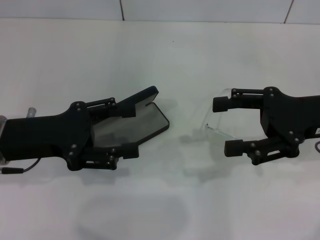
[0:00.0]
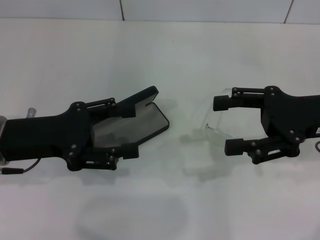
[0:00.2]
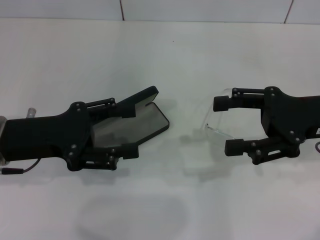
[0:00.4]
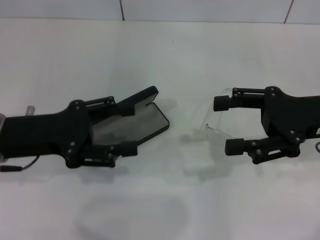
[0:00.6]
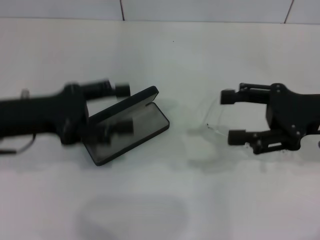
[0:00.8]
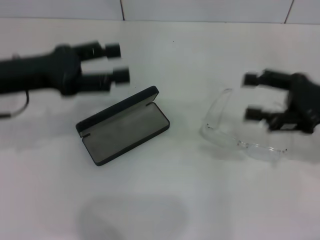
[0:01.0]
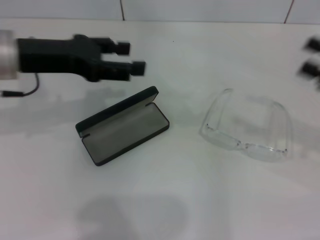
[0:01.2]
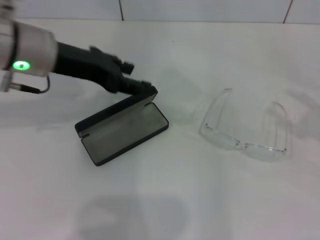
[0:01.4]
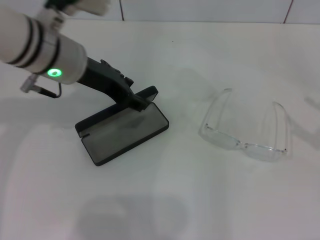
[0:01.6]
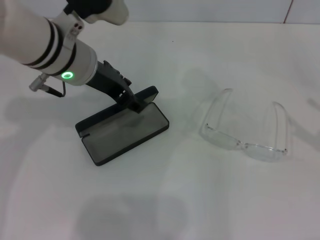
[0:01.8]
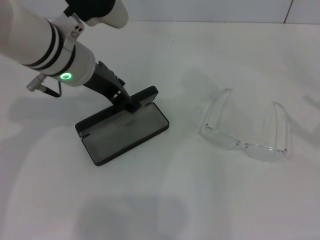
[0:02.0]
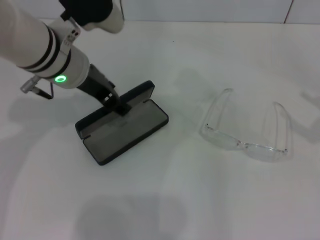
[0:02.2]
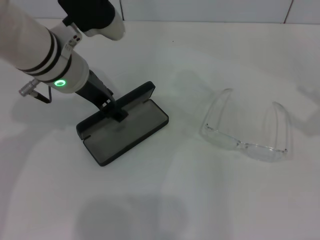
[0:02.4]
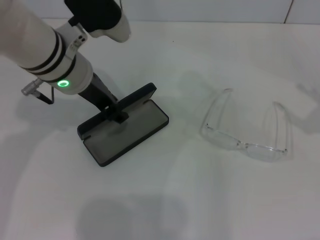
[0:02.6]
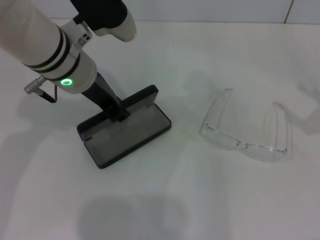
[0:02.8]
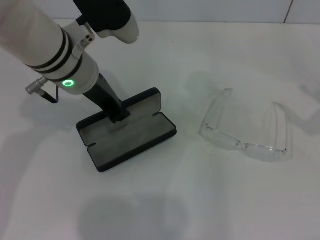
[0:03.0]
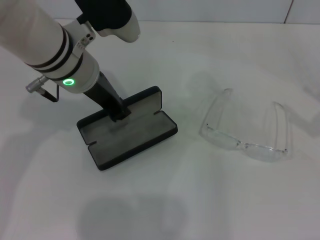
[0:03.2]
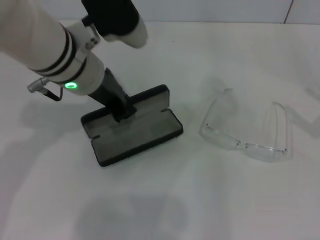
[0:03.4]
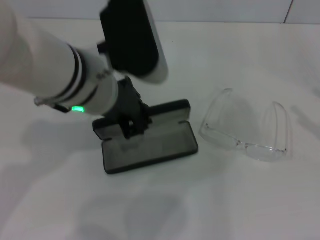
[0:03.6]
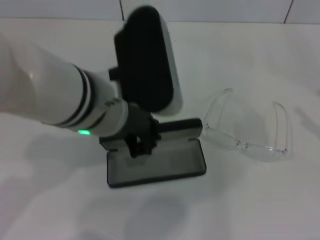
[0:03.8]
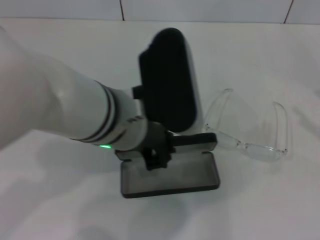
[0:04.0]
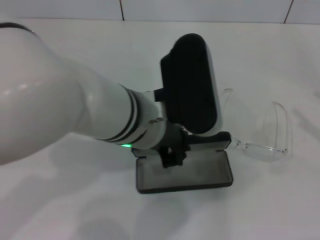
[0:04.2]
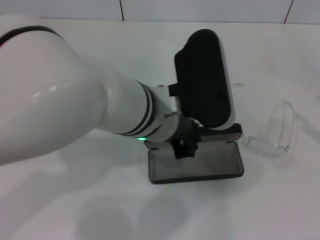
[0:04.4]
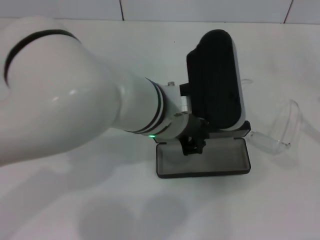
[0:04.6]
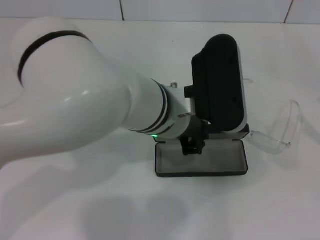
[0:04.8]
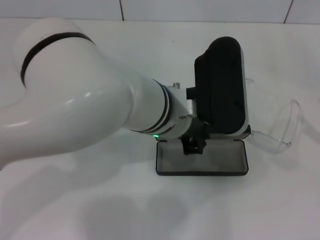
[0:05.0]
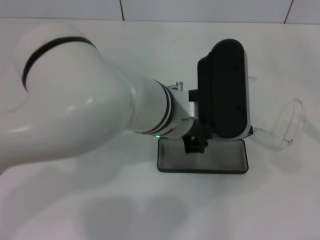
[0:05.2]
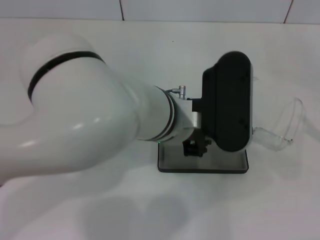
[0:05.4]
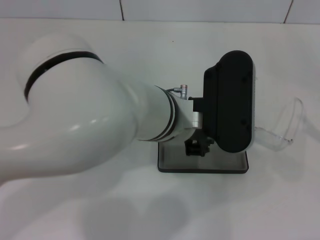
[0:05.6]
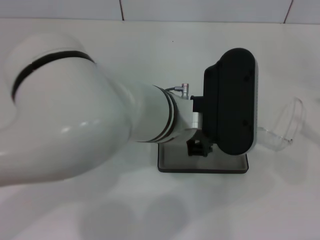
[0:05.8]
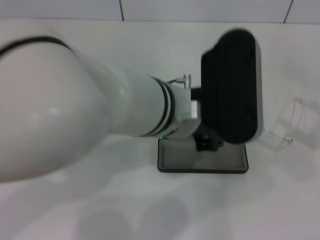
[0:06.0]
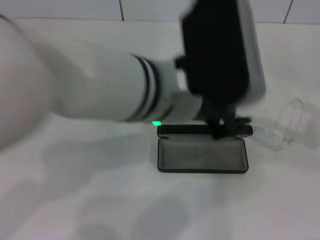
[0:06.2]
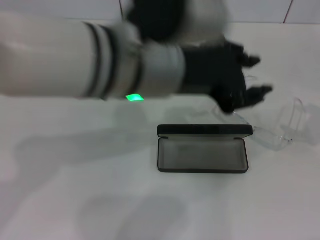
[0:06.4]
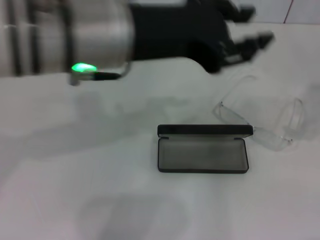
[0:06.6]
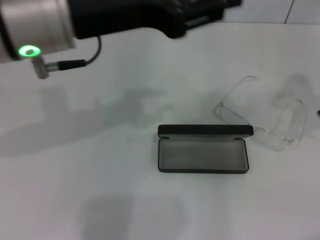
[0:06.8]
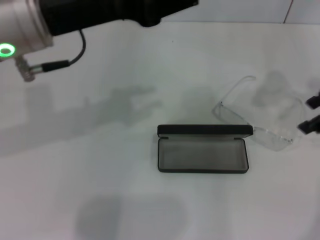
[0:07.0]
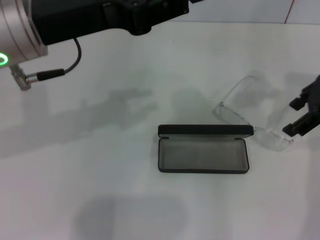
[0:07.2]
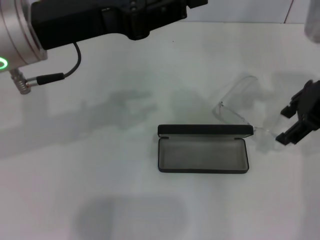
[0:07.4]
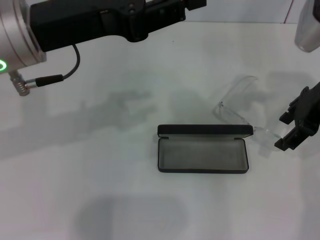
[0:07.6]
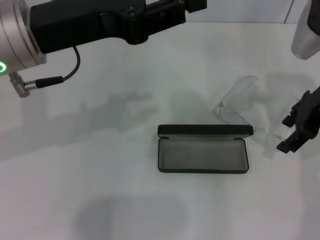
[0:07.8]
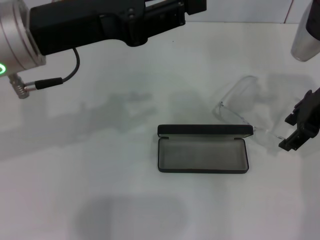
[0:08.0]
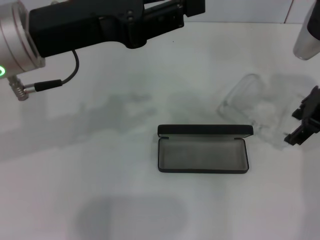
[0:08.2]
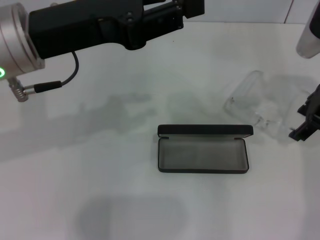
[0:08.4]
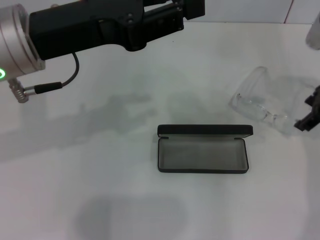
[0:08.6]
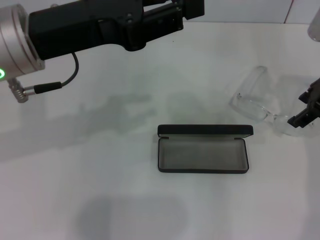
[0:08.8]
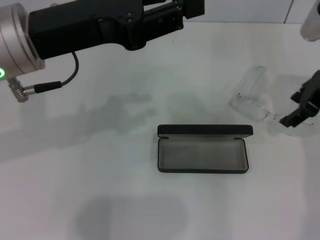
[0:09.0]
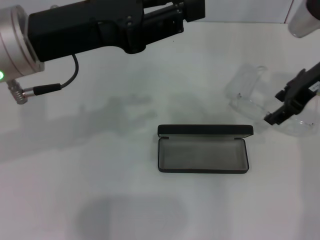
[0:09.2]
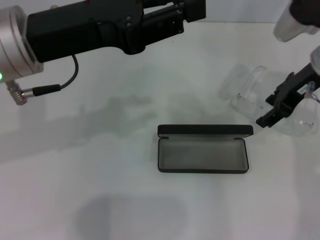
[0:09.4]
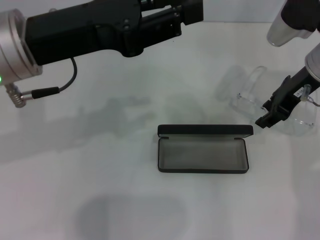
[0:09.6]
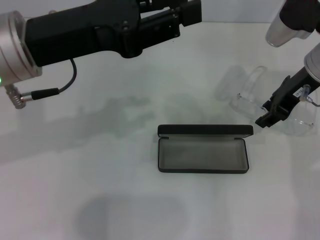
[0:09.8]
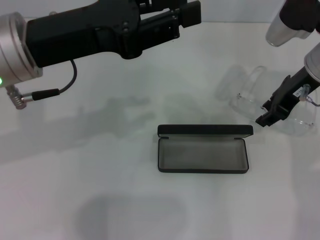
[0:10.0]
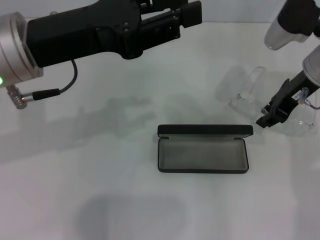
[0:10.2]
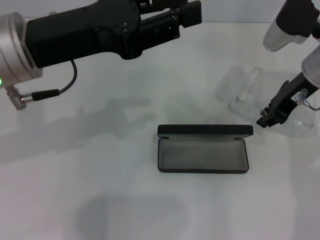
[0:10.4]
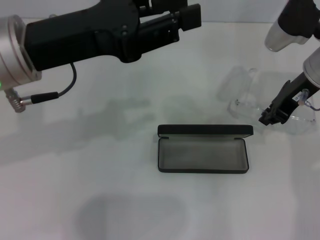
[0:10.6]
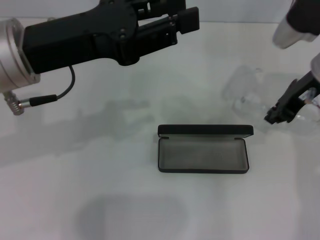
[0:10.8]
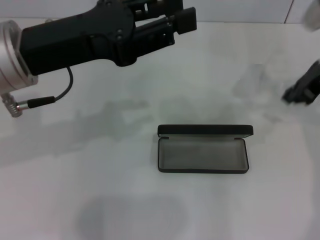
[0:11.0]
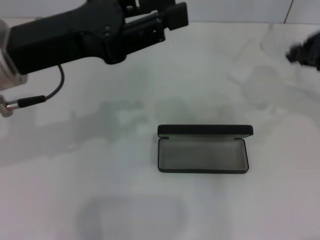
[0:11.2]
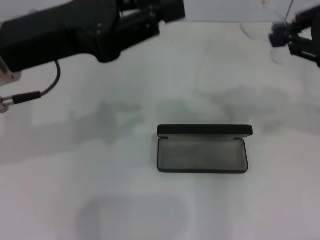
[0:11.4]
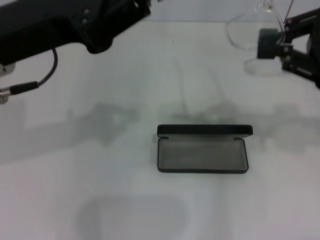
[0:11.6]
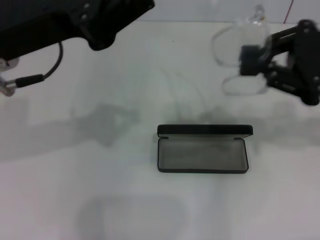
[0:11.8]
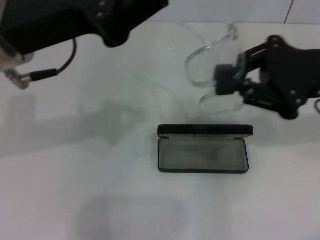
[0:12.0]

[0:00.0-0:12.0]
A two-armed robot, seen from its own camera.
Step, 0:00.0 to 0:02.8: Grab the glasses case with your left hand.
Step, 0:03.0 to 0:05.4: Place the glasses case in the center of the table with your left hand.
Step, 0:05.6 to 0:10.6: Grab the eyeglass frame with your right hand.
0:00.0 to 0:01.6: The right gripper shifts approximately 15 cm to the right and backward. Meanwhile the left gripper heads to the right, forward and upward, covering some 15 cm.
0:01.6 to 0:03.0: The left gripper closes its fingers.
0:03.0 to 0:04.4: The left gripper heads to the right and backward, covering approximately 10 cm.
0:04.4 to 0:06.0: There are only small adjustments of the grippers.
0:06.0 to 0:07.6: The right gripper travels to the left, forward and upward by approximately 25 cm. Meanwhile the left gripper is displaced to the left by about 15 cm.
0:07.6 to 0:09.0: The grippers stay close to where they were, moving slightly.
0:09.0 to 0:10.4: The right gripper closes its fingers.
0:10.4 to 0:12.0: The right gripper travels backward by approximately 10 cm. Meanwhile the left gripper closes up.

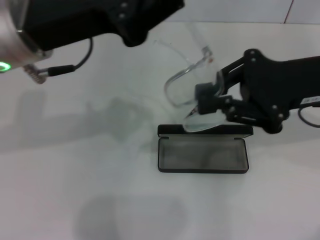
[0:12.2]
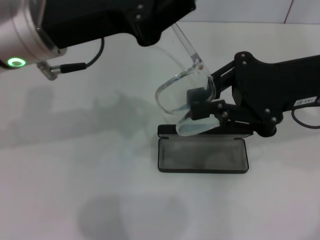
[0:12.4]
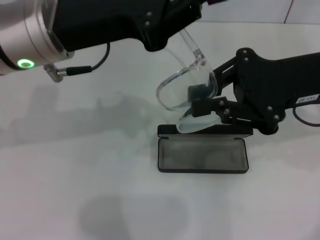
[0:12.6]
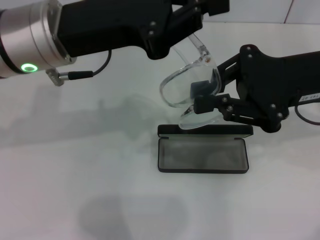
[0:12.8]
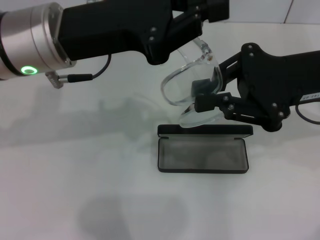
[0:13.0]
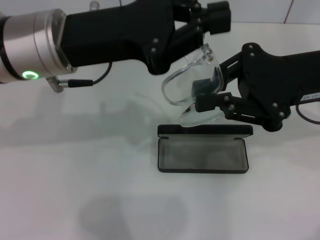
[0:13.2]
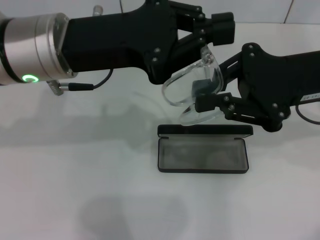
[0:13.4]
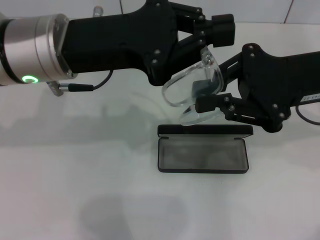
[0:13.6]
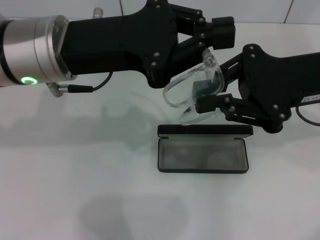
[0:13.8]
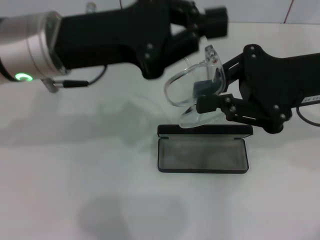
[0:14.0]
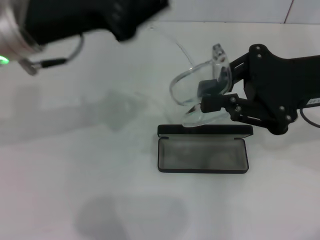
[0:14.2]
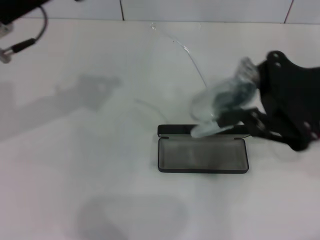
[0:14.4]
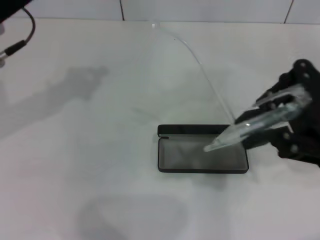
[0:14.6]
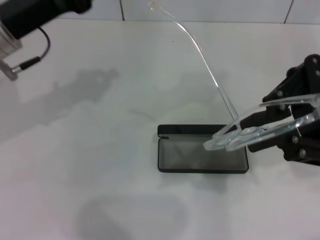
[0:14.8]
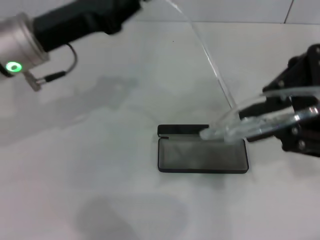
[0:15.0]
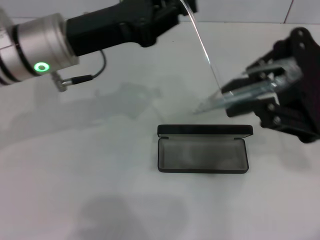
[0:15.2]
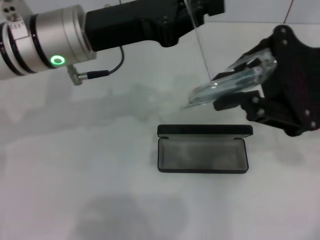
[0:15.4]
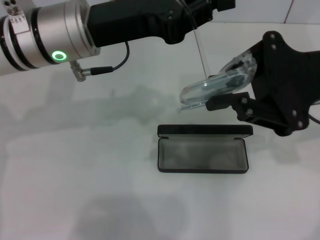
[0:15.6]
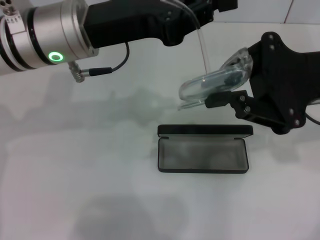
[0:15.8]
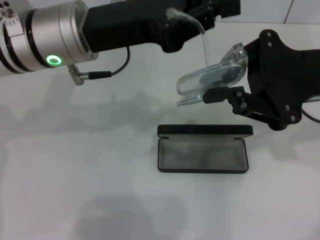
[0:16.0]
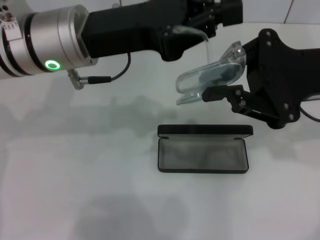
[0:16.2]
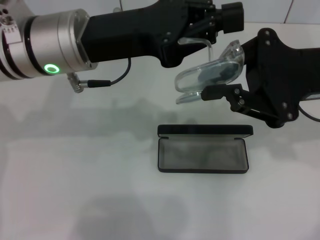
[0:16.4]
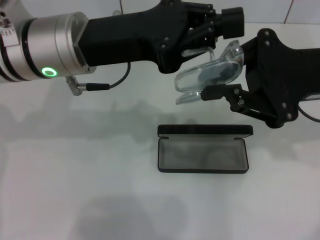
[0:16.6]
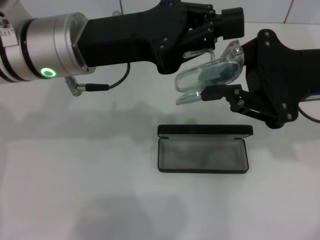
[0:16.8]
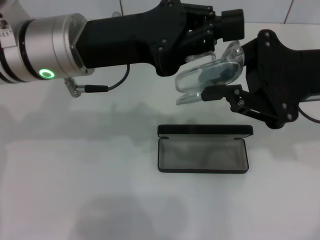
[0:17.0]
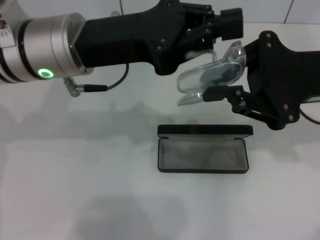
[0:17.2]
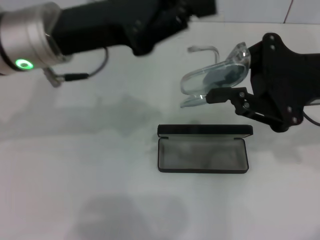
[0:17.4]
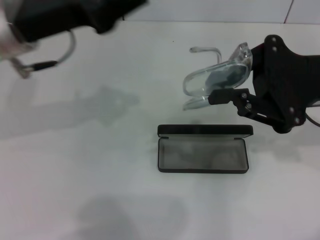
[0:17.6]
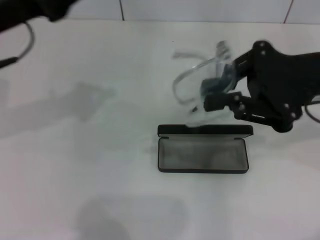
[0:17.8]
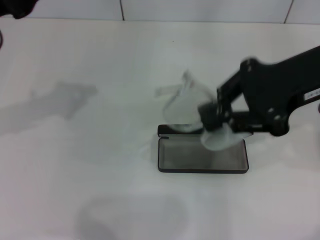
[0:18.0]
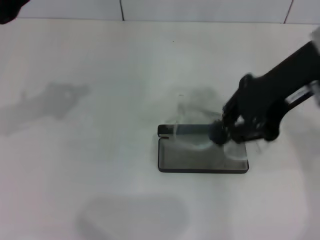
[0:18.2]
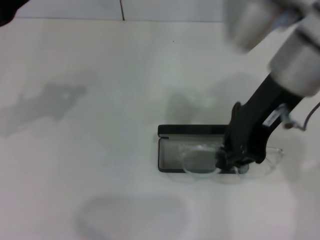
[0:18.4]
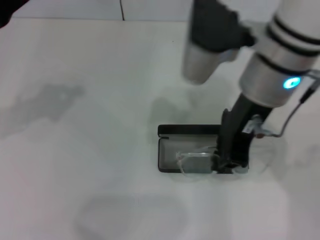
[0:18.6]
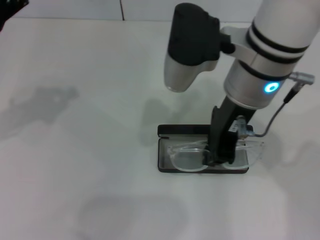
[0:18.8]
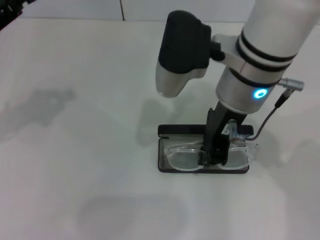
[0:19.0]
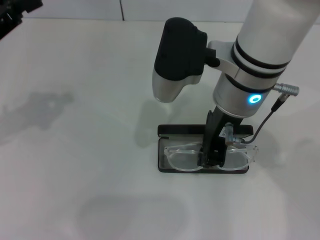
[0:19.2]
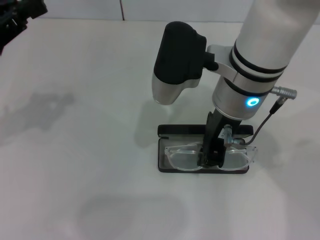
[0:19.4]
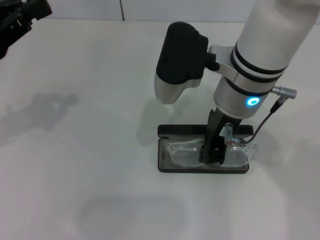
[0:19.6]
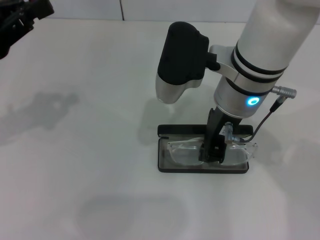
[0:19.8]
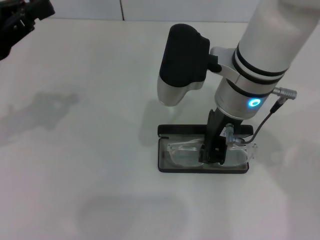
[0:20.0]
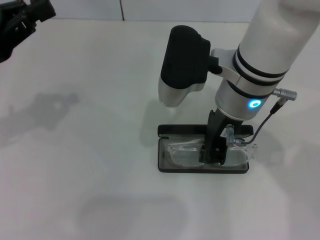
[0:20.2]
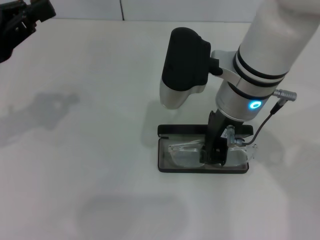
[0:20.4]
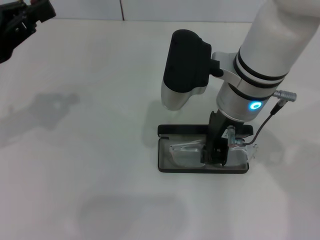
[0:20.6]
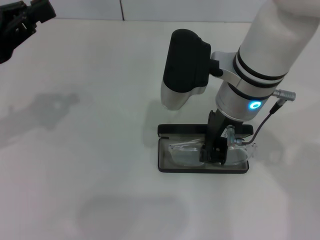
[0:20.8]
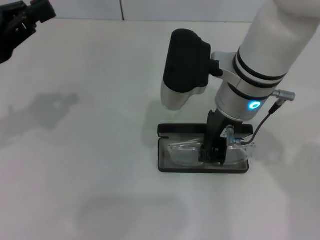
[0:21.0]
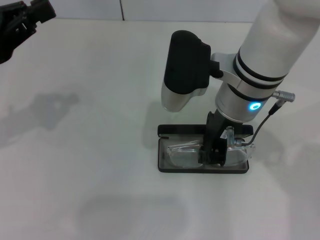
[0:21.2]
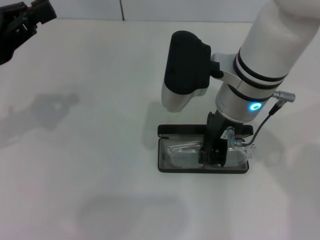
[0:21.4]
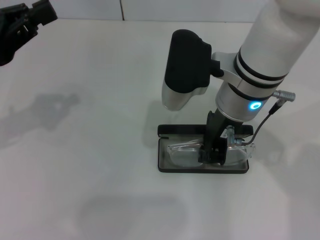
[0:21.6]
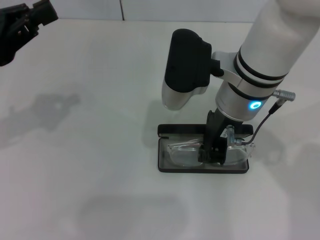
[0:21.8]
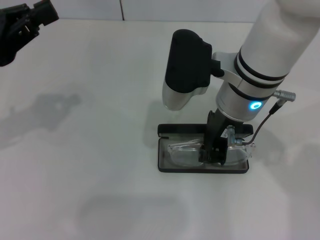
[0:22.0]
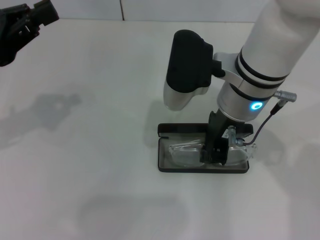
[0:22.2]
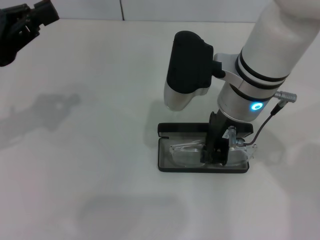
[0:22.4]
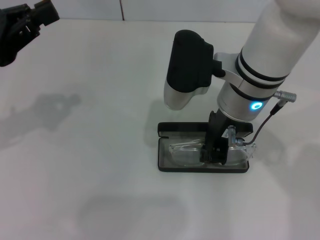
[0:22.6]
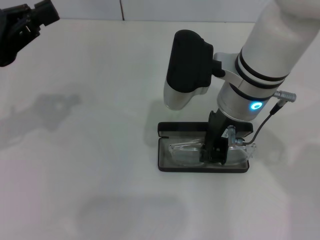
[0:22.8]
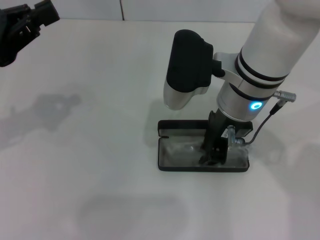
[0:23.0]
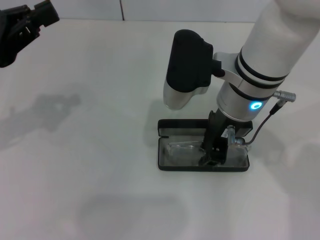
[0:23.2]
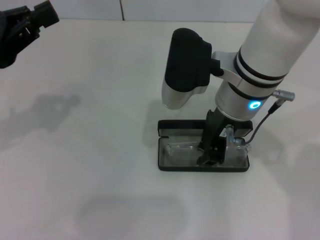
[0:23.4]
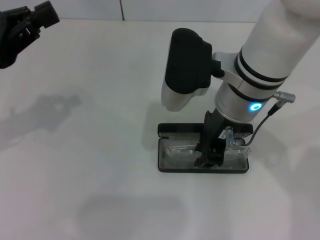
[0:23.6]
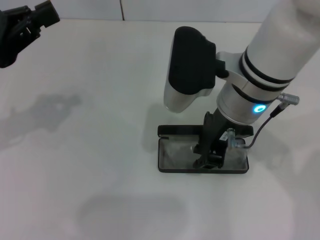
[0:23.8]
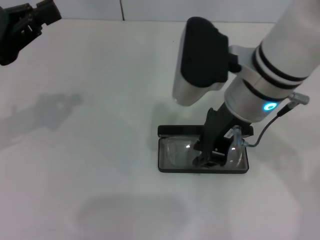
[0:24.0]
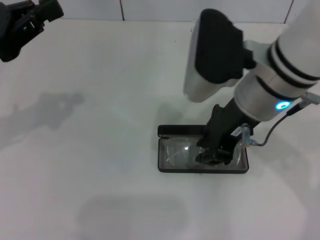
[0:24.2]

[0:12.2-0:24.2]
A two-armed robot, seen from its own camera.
Step, 0:12.2 to 0:17.0: Fold the frame with your left hand.
Step, 0:17.2 to 0:24.0: Put the glasses into the case with your right hand.
0:13.8 to 0:15.2: The left gripper goes to the left and returns, roughly 10 cm each way.
0:16.6 to 0:18.2: The right gripper shifts approximately 5 cm upward; the left gripper moves to the left, some 15 cm.
0:18.2 to 0:19.8: The right gripper goes about 15 cm to the left and downward.
0:19.8 to 0:21.2: Both grippers stay put.
0:21.2 to 0:22.6: Both grippers stay about where they are.
0:22.6 to 0:24.2: There are only small adjustments of the grippers.
